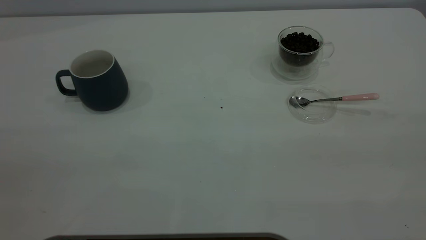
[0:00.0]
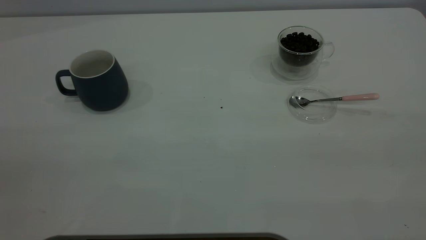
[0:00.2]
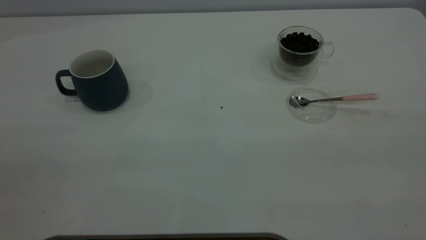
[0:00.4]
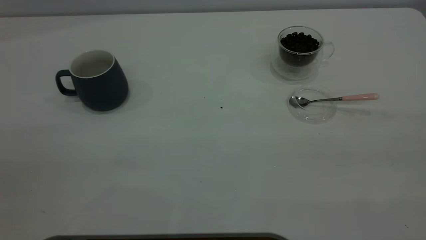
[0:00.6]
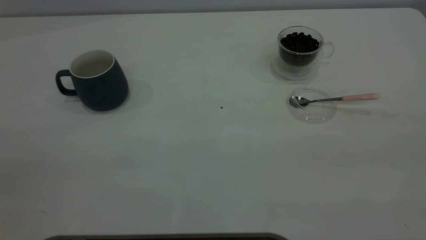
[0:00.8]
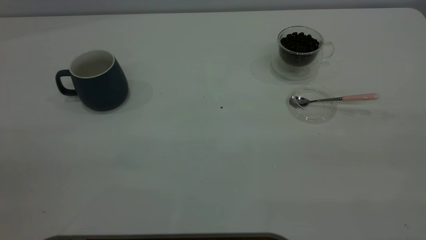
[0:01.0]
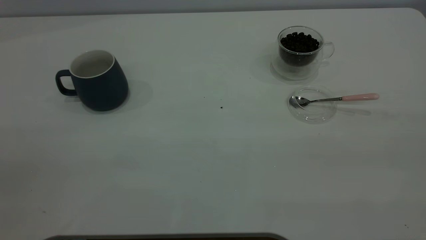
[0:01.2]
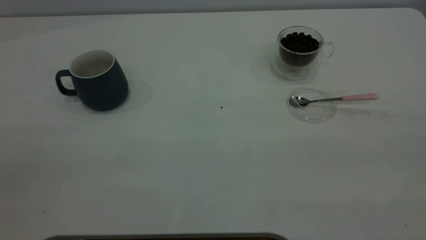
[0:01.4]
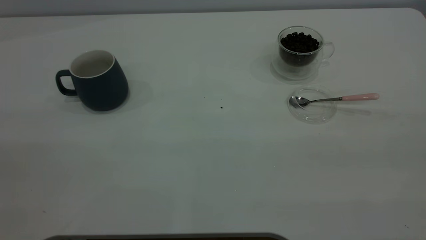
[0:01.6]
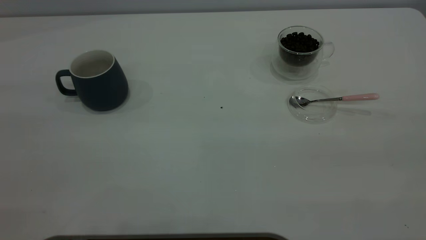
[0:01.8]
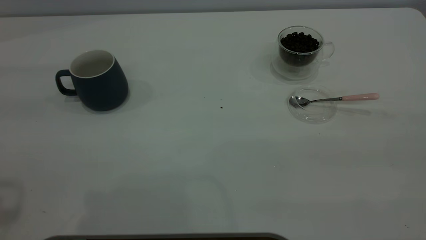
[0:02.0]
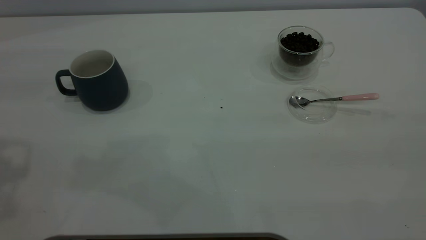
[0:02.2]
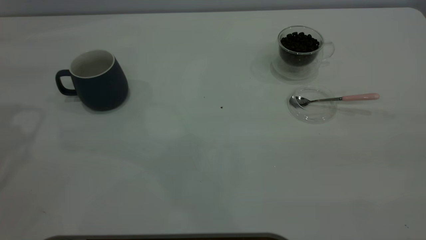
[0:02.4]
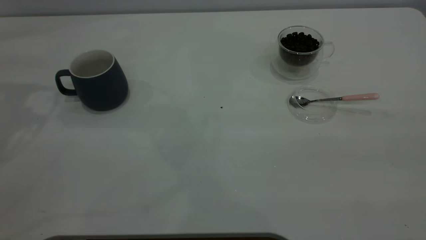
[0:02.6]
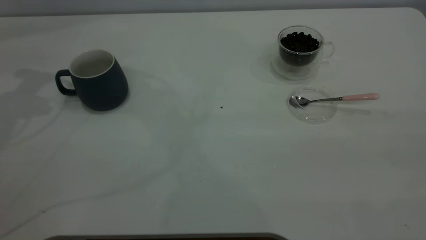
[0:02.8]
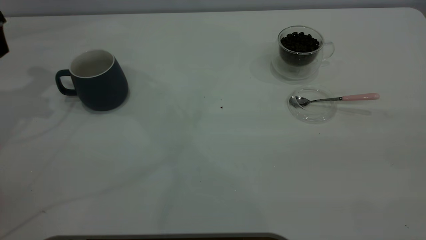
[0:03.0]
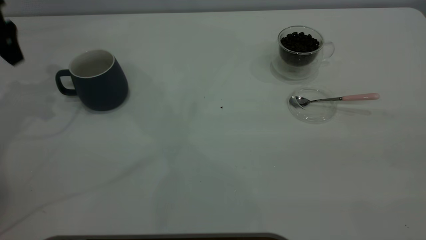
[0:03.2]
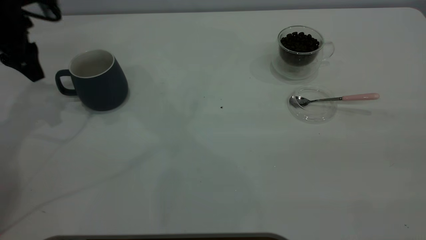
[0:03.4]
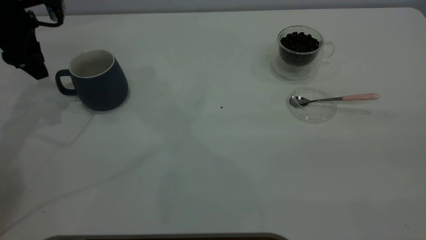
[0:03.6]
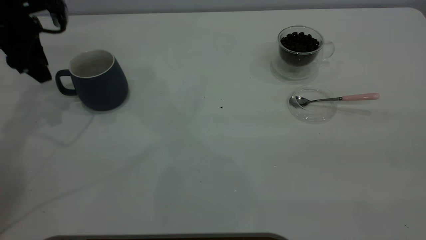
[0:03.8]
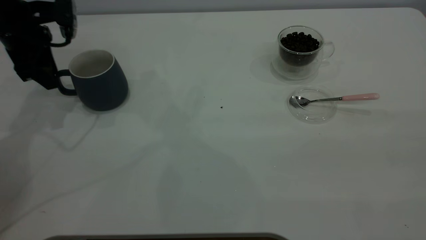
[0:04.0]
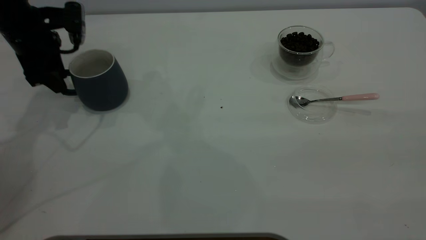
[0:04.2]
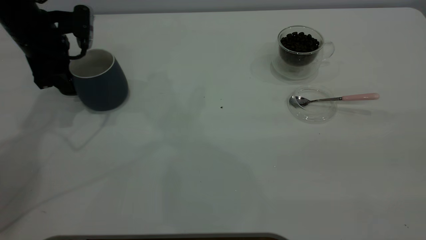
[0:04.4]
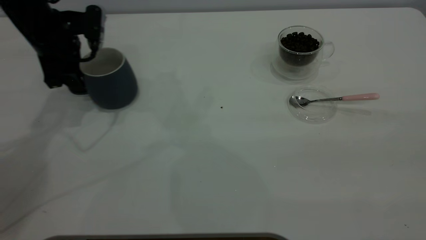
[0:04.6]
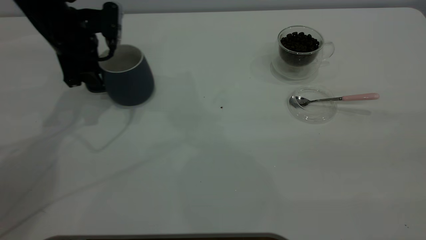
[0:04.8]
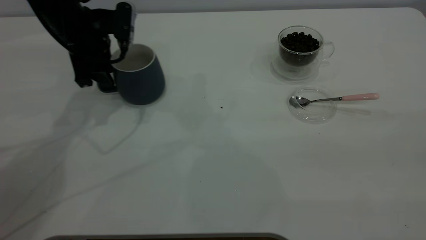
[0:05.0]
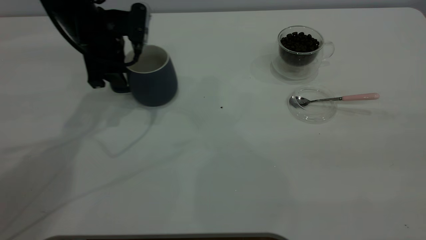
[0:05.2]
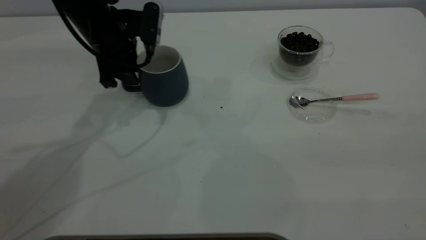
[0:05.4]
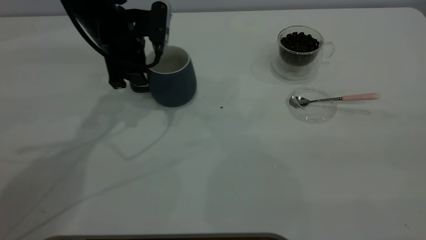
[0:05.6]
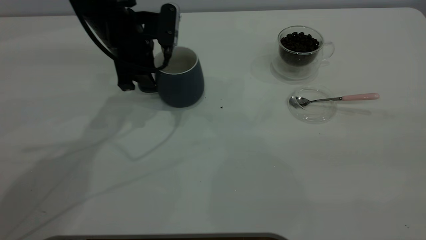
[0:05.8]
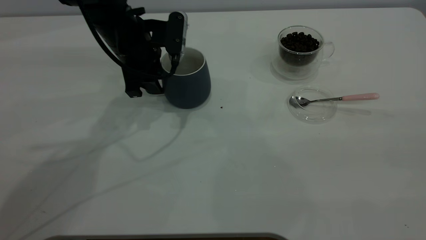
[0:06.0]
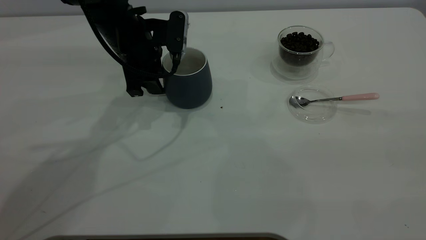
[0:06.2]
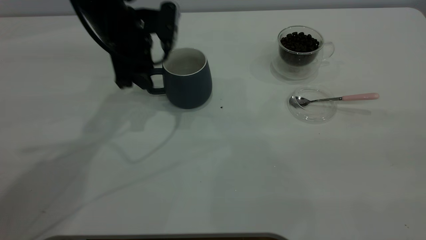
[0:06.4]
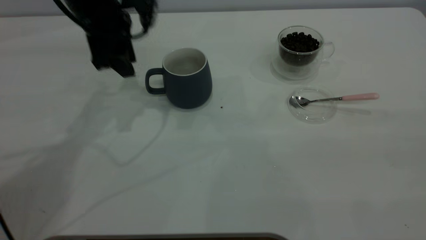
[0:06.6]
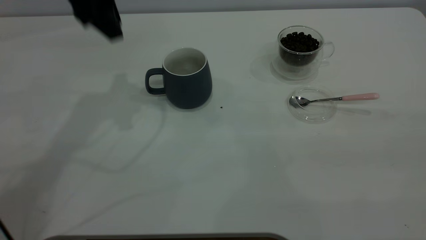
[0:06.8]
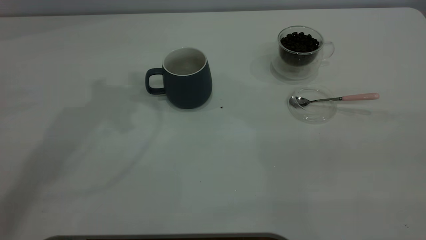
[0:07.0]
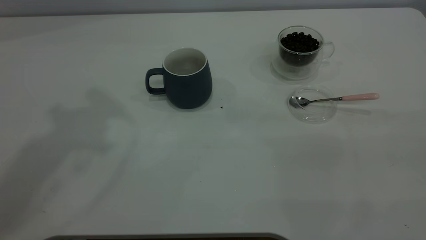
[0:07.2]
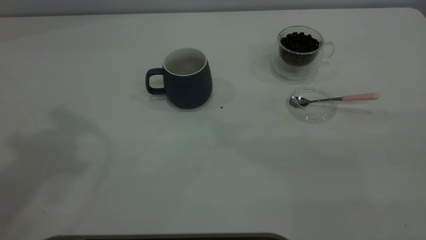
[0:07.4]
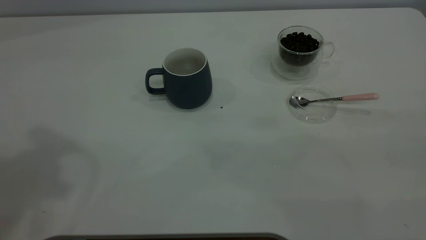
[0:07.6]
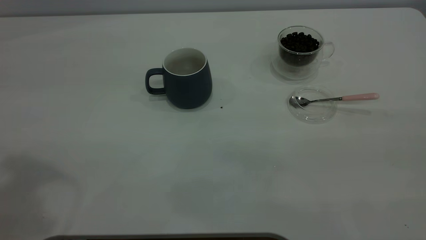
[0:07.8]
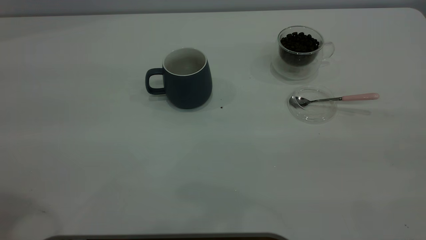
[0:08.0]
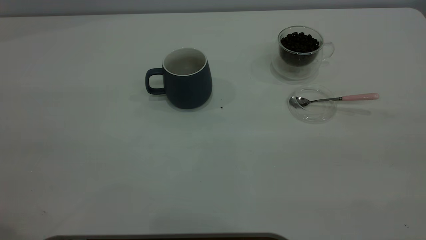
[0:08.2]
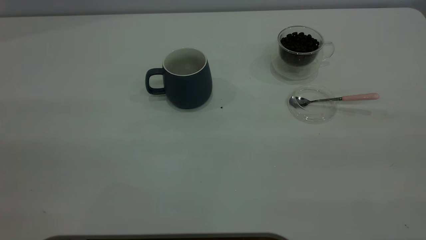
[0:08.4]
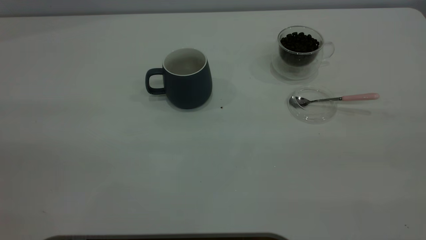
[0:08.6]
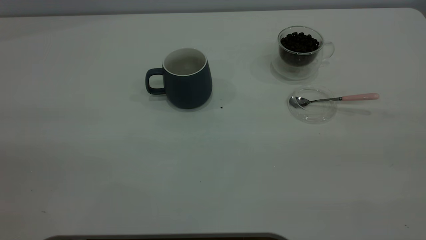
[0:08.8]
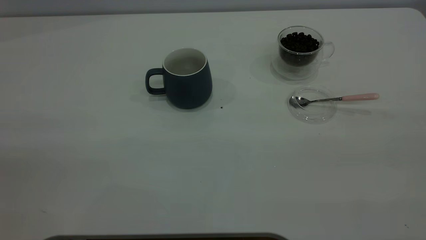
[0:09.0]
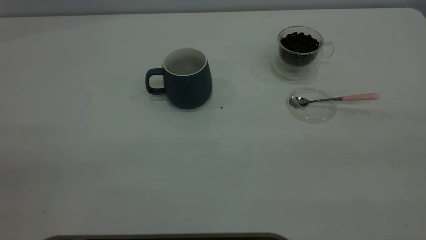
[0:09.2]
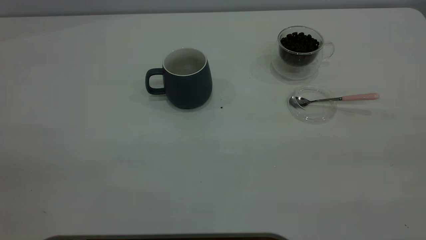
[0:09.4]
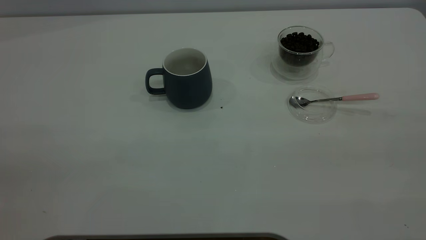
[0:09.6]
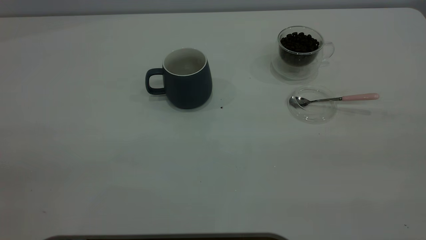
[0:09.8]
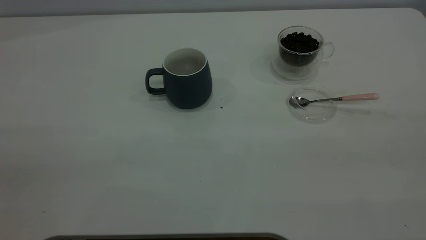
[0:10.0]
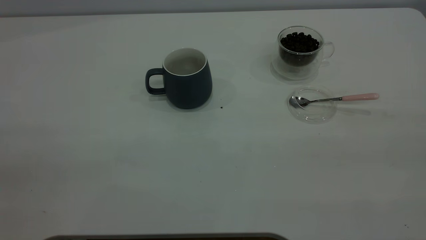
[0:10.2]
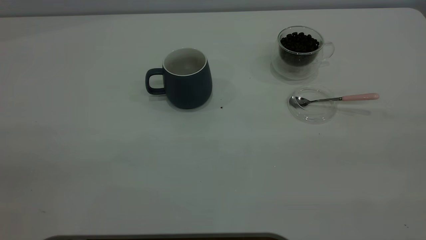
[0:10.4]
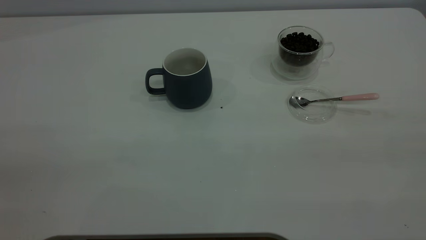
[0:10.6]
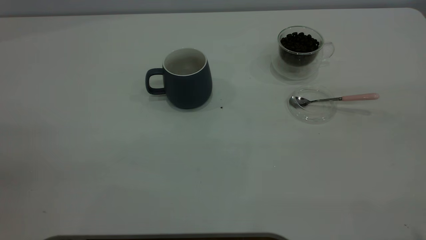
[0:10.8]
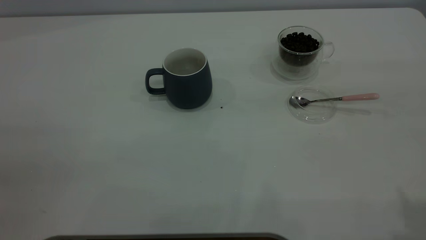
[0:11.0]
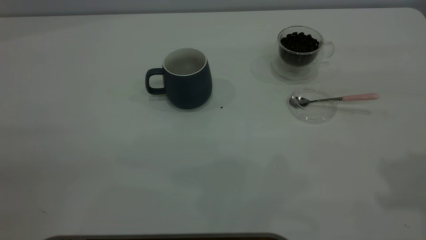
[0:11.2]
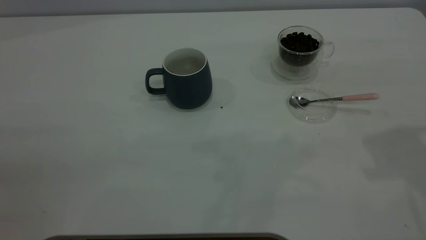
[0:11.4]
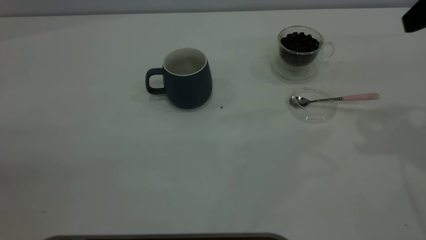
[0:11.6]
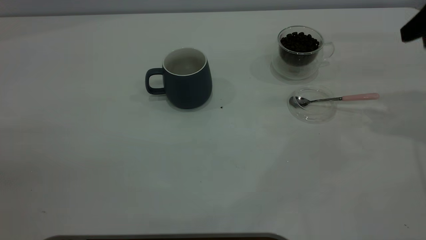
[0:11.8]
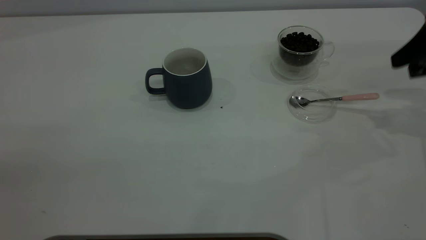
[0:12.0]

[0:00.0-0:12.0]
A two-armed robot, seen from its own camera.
Task of the whole recording: the left gripper place the grey cup in the center of the table, the right gripper take the pink spoon from the cup lid and scoop out the coffee beans from the coffee cup and put them into the grey cup, the right gripper put the spoon back into the cup lid.
Step, 0:00.0 to 0:06.2: Move the cup to the center of view.
0:03.0 to 0:04.4: The left gripper heads downward and to the right, covering roughly 10 cm, and closes.
0:04.4 to 0:06.0: The left gripper moves to the right, about 15 cm.
0:06.0 to 0:07.6: The left gripper goes about 40 cm upward and backward.
0:10.4 to 0:12.0: The right gripper shifts approximately 40 cm forward and downward.

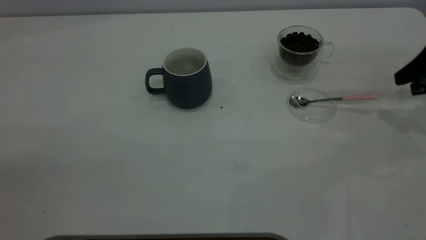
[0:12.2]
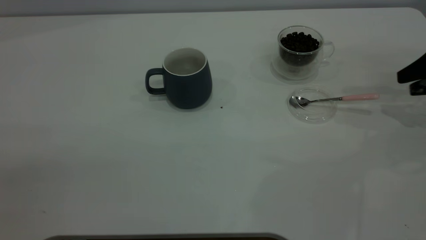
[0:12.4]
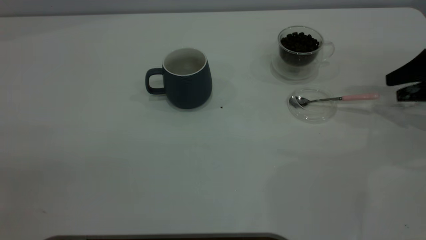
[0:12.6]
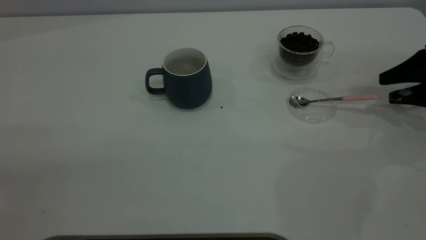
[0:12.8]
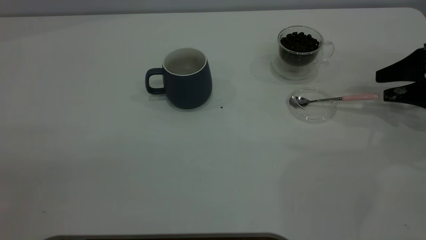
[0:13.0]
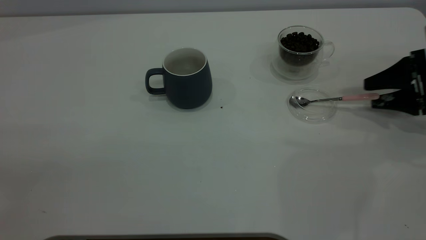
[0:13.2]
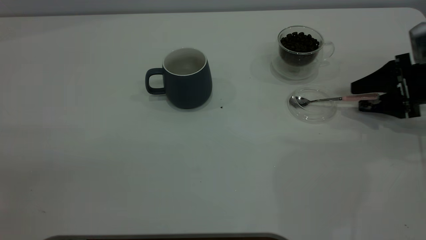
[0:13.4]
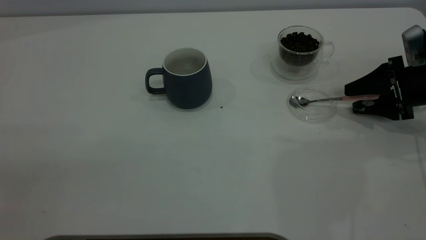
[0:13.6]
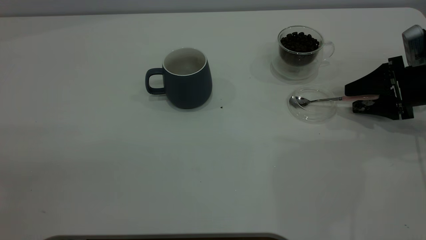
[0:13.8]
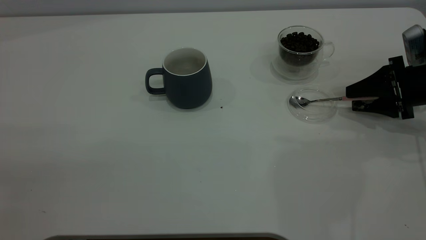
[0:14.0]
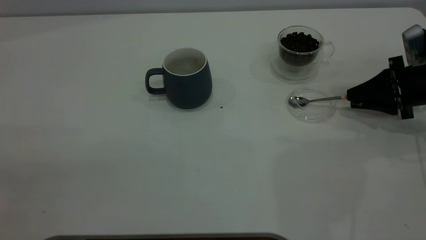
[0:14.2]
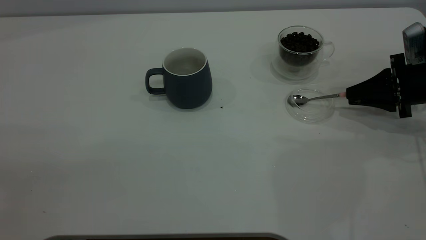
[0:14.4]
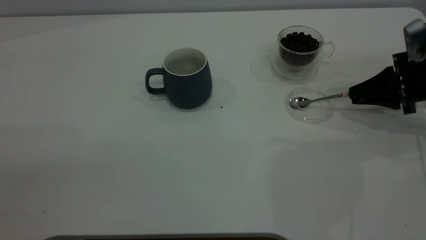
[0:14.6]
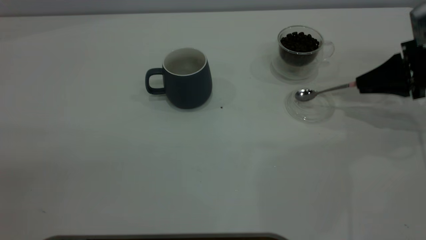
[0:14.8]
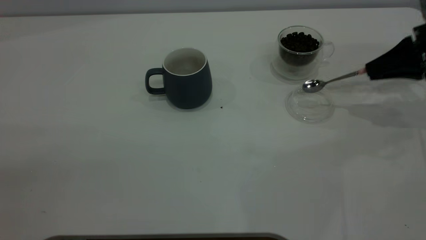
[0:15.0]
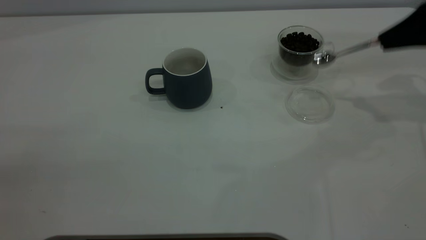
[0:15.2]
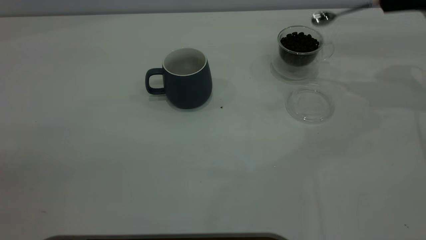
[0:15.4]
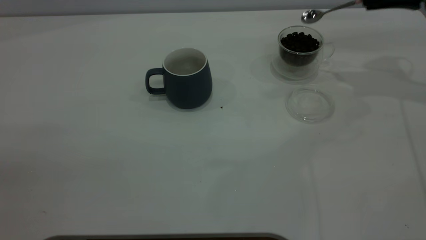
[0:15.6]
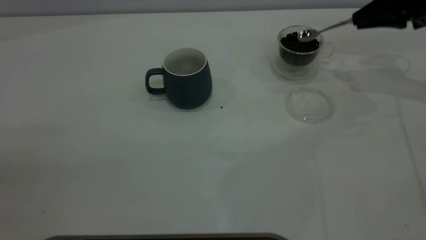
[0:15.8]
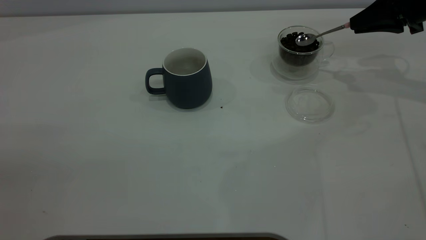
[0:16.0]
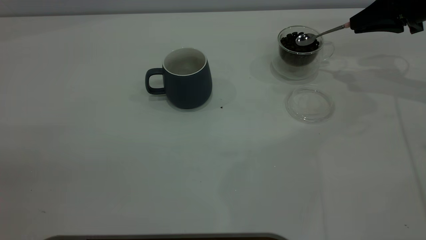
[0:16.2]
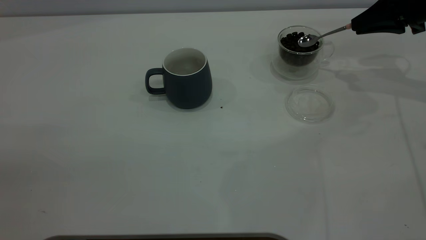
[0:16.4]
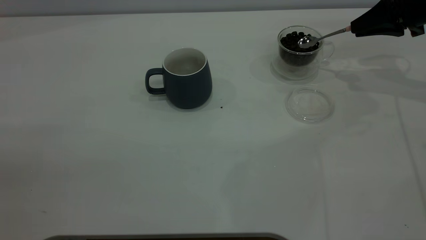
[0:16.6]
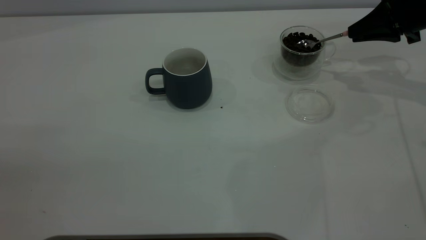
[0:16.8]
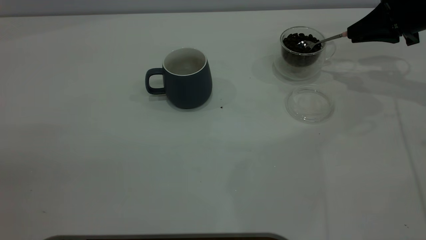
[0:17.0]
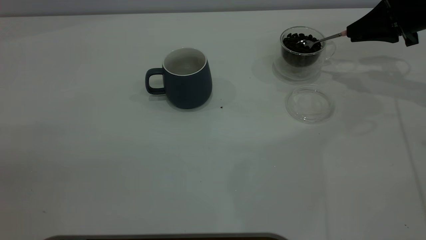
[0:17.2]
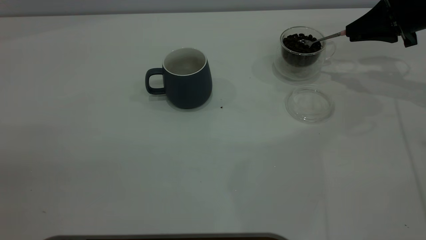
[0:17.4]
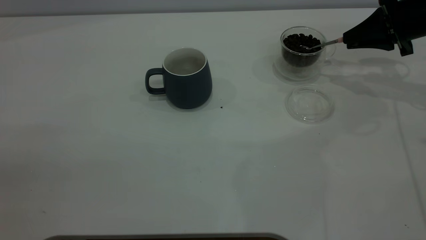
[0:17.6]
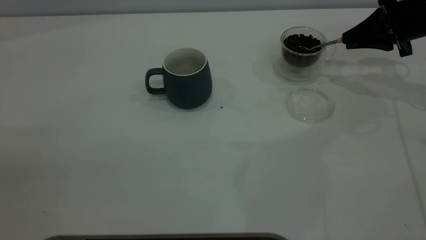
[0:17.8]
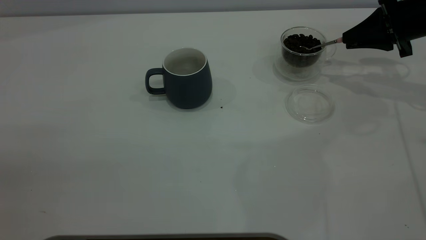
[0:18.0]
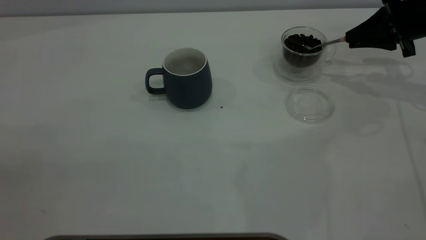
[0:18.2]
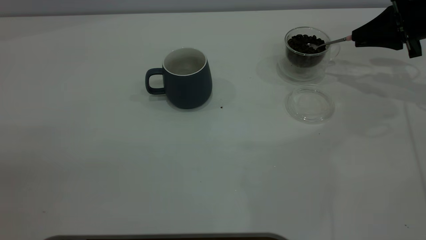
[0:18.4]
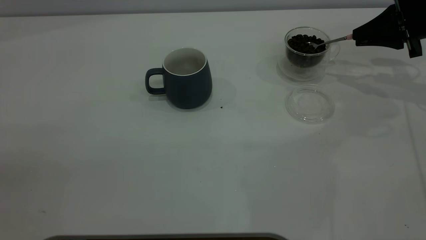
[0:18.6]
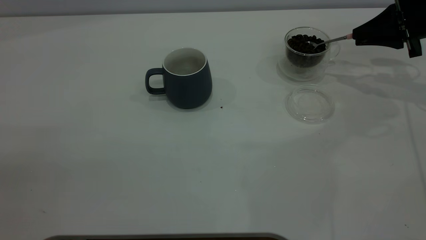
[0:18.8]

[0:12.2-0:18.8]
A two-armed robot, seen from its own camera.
Task of the whole recording: the left gripper place the grey cup in the center of the table, the right gripper take the pink spoon from the cup lid and scoop out the coffee beans from the coffee cup and put them into the grey cup, the right gripper put the spoon back into the cup lid.
Step, 0:12.2 to 0:15.0: Pick up the spoon.
0:12.2 to 0:13.8: The right gripper heads downward, covering some 10 cm.
0:13.8 to 0:15.4: The right gripper travels upward by about 15 cm, and closes its fingers.
0:15.4 to 0:17.2: The right gripper travels downward by roughly 5 cm.
0:17.2 to 0:18.8: The grippers move only a little.
